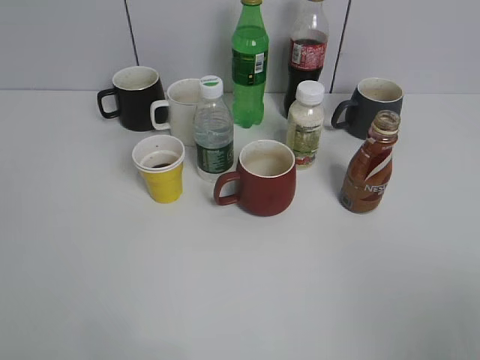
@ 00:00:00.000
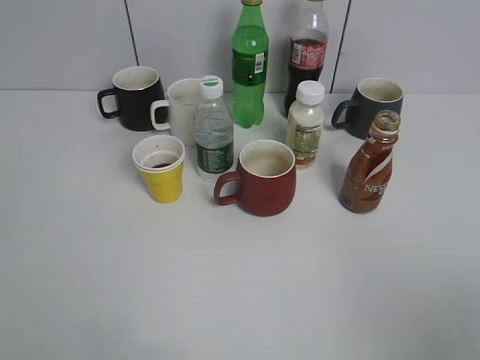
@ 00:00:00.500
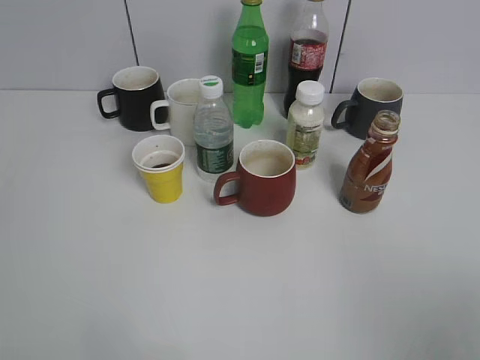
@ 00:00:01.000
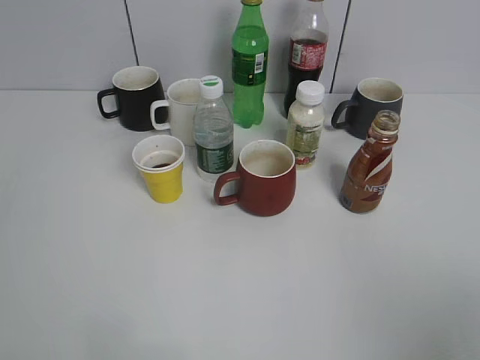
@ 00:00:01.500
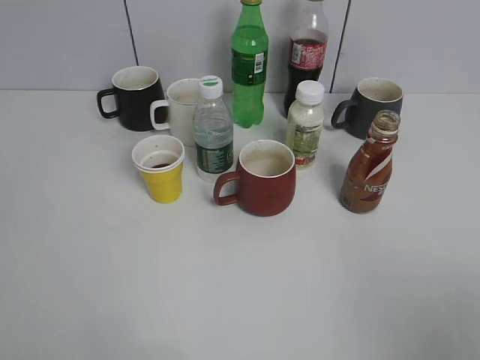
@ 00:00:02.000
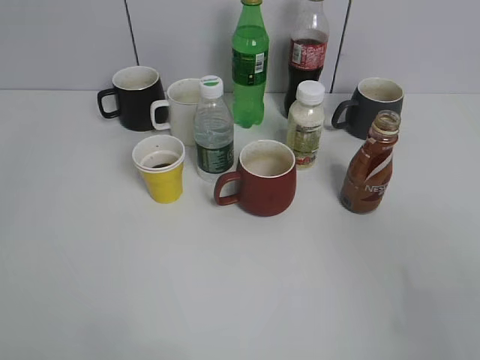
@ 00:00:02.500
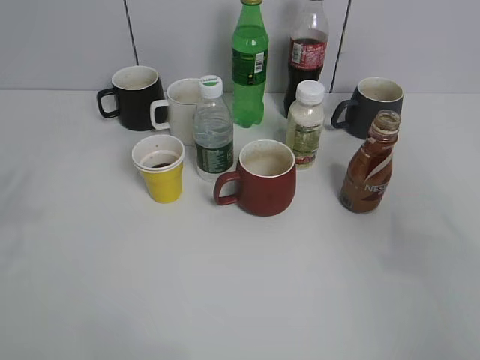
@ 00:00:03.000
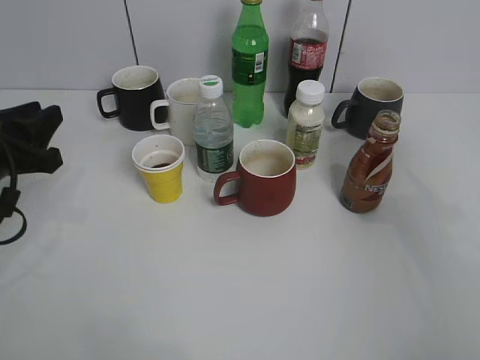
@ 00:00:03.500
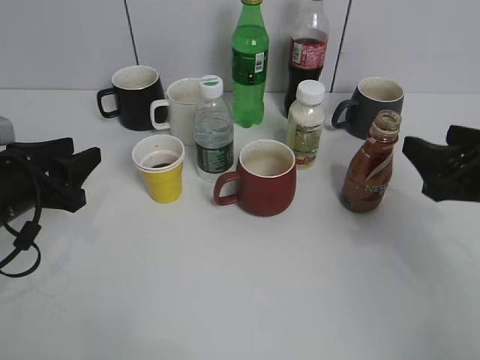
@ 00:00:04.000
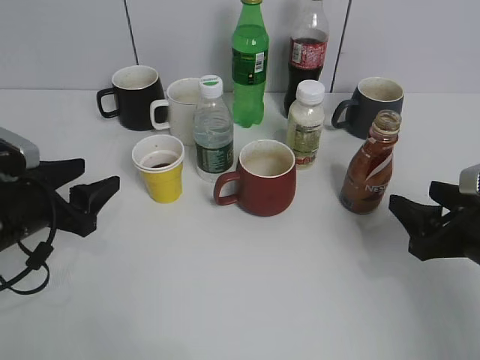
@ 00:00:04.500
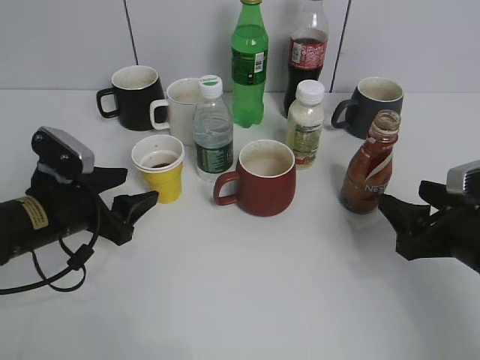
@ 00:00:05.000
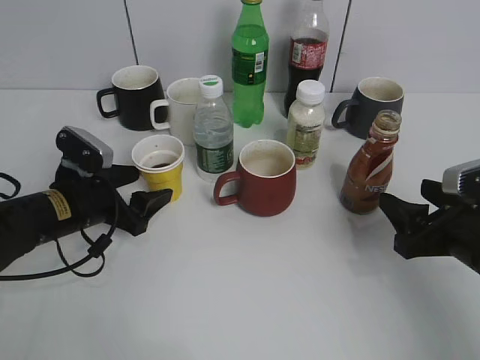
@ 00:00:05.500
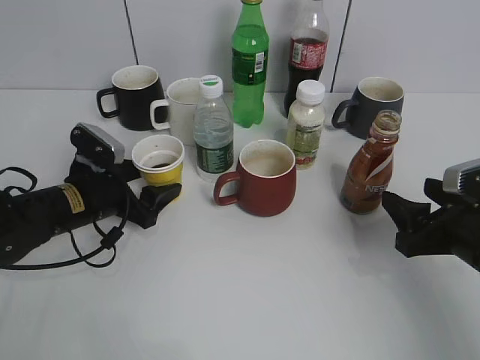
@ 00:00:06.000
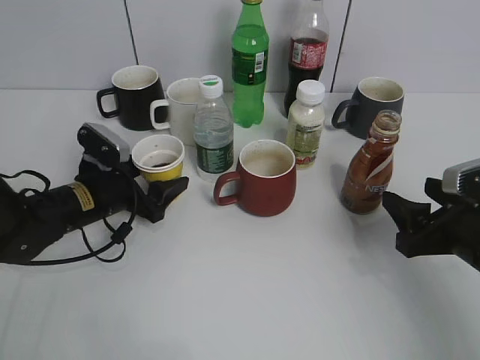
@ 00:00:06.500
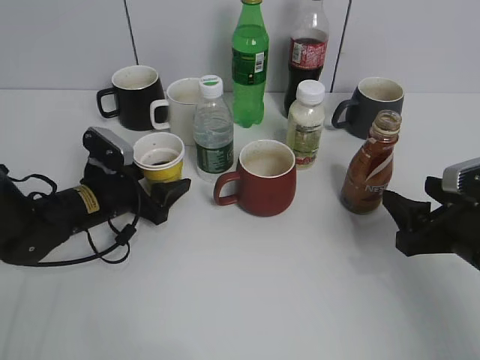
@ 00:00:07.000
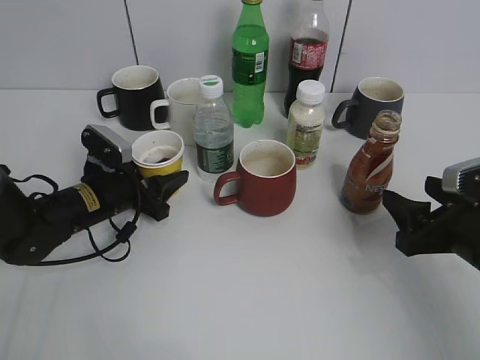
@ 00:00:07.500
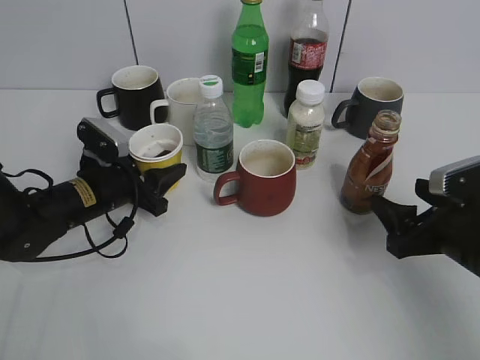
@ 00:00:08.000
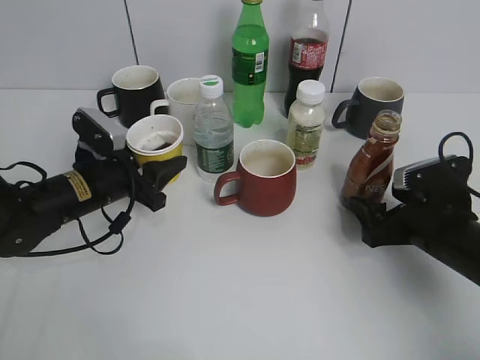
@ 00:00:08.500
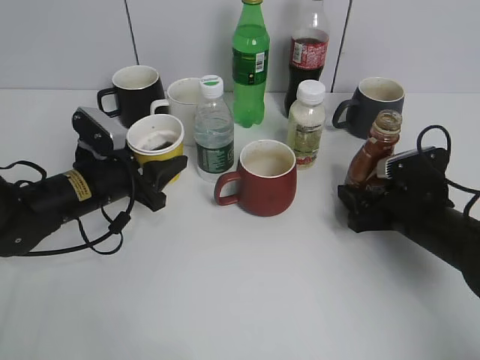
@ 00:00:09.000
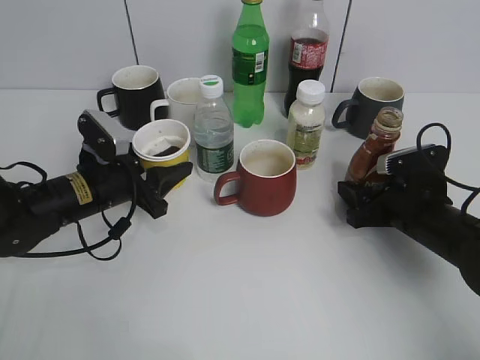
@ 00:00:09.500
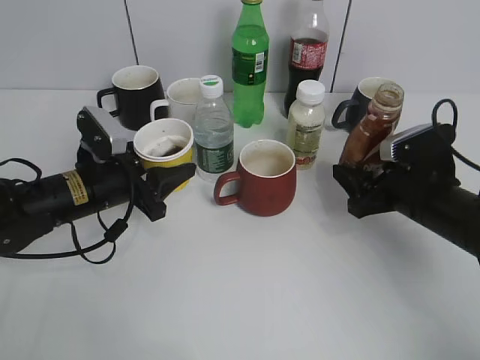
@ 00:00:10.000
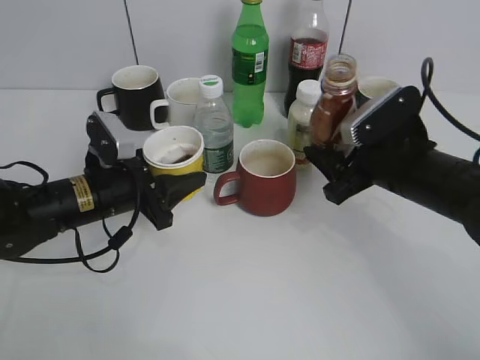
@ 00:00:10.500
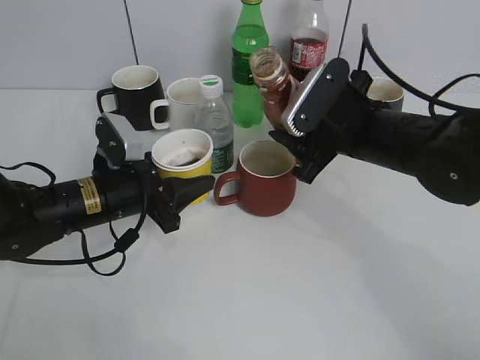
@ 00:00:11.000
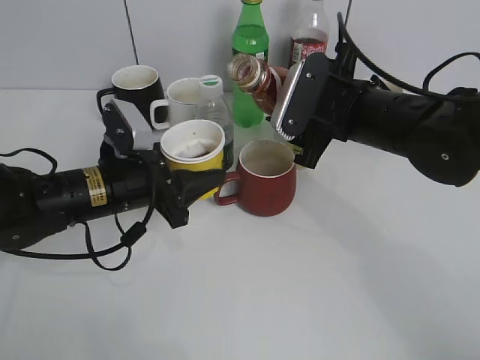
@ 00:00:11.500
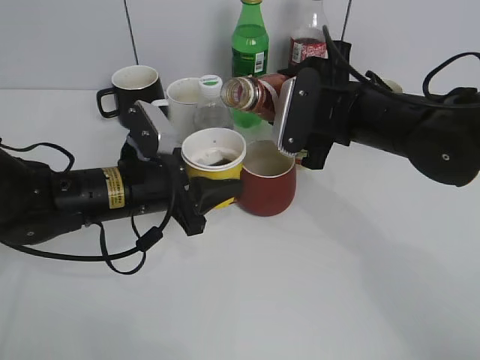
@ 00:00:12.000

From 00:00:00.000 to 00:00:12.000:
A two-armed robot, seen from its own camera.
Step, from 00:00:02.000 to 00:00:07.500: Grasp the yellow paper cup with left gripper.
Step, from 00:00:08.000 to 00:00:09.000: Lift the yellow paper cup with left gripper.
From 00:00:02.000 to 00:00:04.000: The two grippers go about 30 cm forward and downward. The right gripper closes its fingers.
From 00:00:04.000 to 00:00:06.000: The left gripper is displaced downward, forward and to the right by approximately 10 cm, and opens. The right gripper shifts about 5 cm downward.
From 00:00:06.000 to 00:00:08.000: The left gripper closes.
From 00:00:08.000 to 00:00:10.000: The right gripper moves forward, approximately 5 cm, and opens, then closes once more.
From 00:00:10.000 to 00:00:12.000: The right gripper travels to the left and upward by approximately 15 cm; the left gripper shifts some 5 cm to the right.

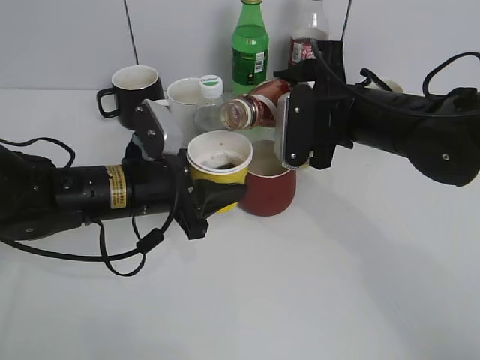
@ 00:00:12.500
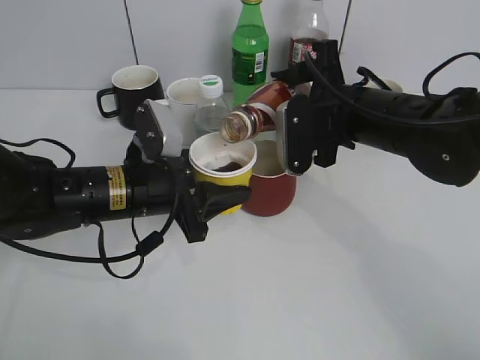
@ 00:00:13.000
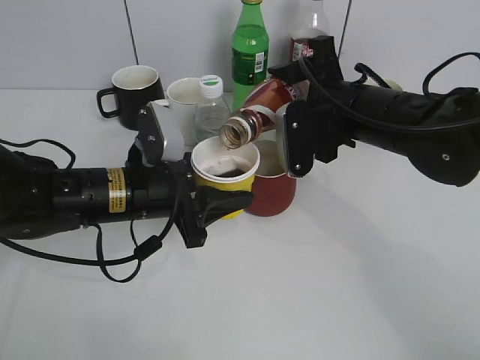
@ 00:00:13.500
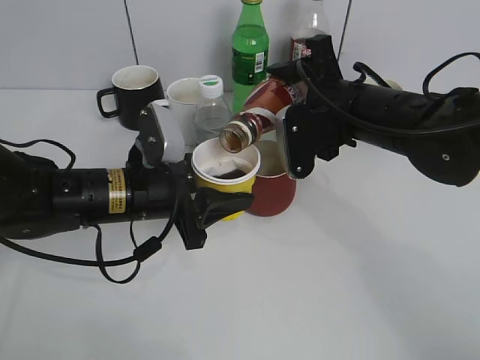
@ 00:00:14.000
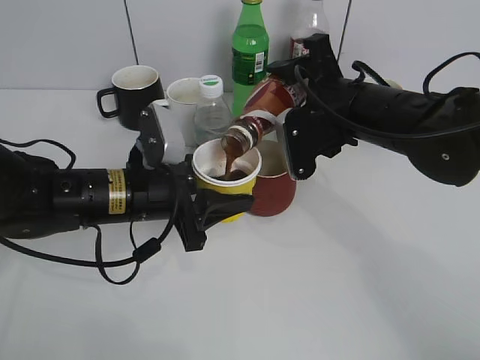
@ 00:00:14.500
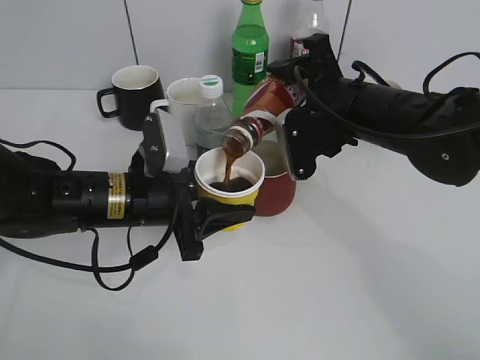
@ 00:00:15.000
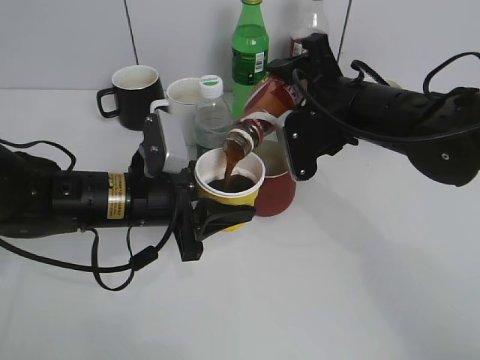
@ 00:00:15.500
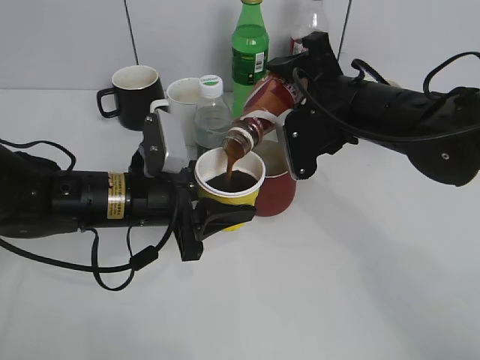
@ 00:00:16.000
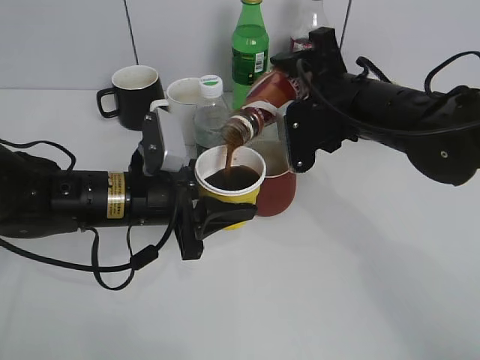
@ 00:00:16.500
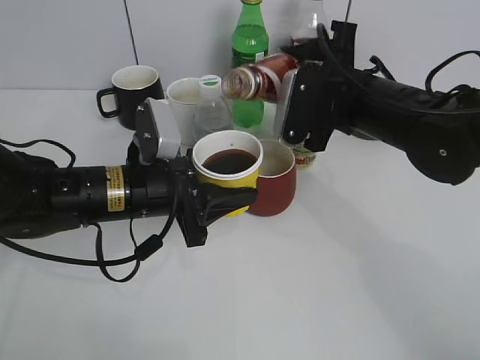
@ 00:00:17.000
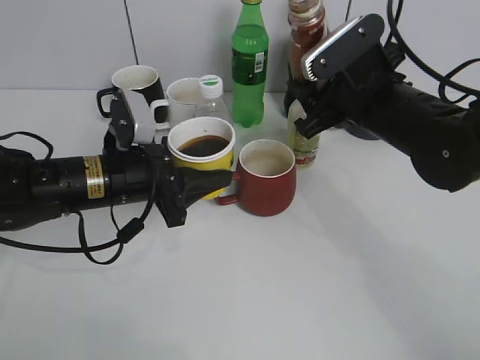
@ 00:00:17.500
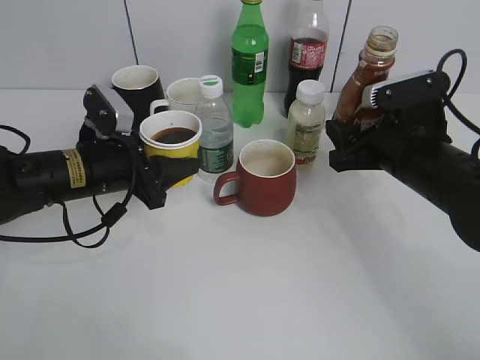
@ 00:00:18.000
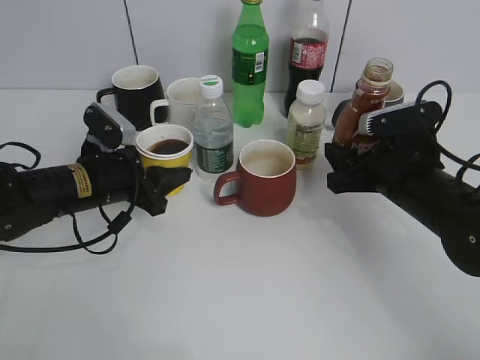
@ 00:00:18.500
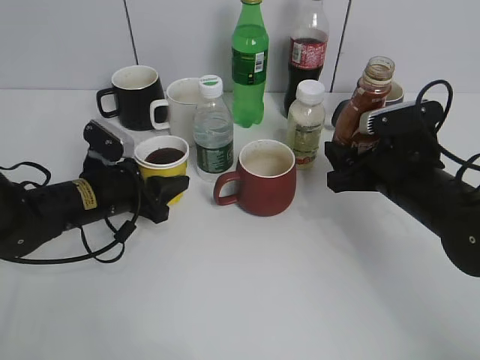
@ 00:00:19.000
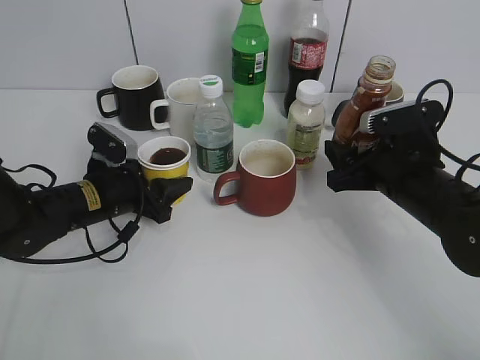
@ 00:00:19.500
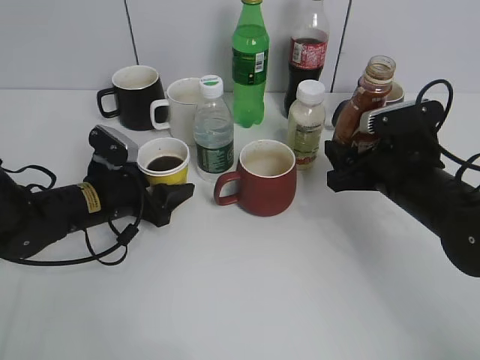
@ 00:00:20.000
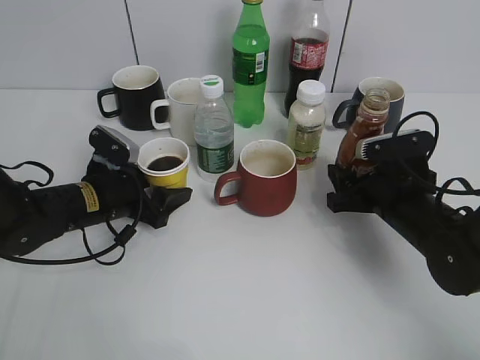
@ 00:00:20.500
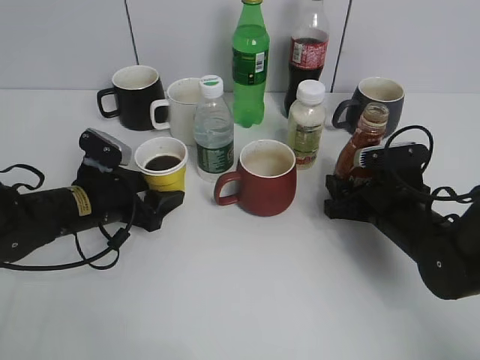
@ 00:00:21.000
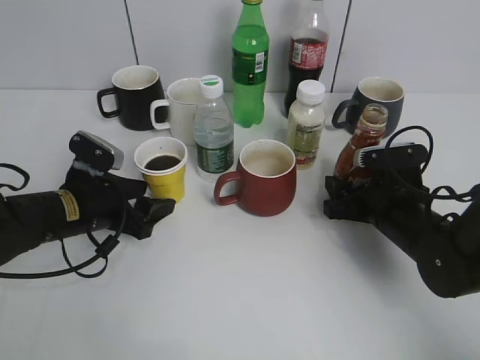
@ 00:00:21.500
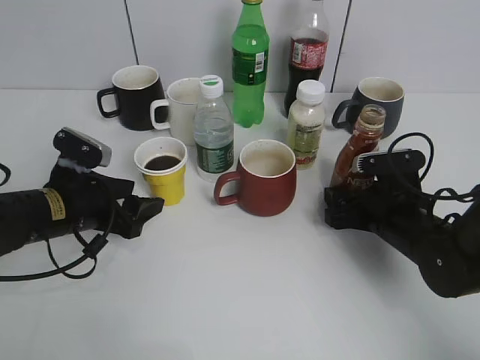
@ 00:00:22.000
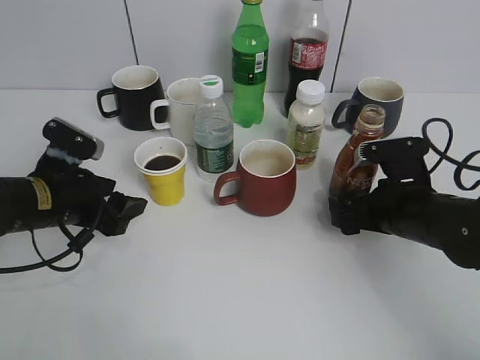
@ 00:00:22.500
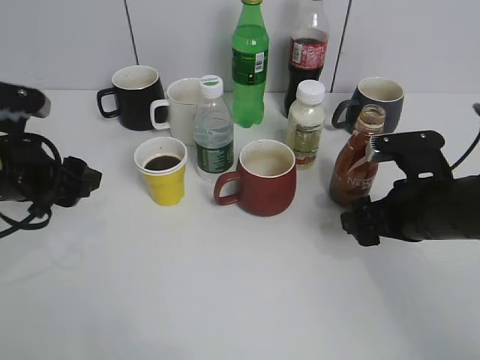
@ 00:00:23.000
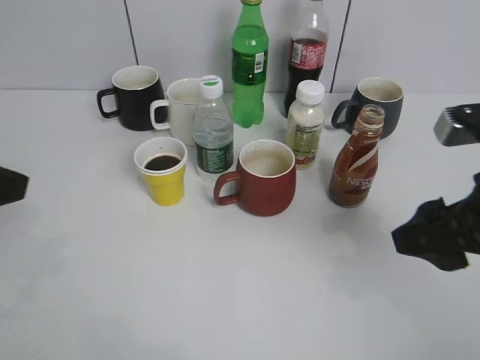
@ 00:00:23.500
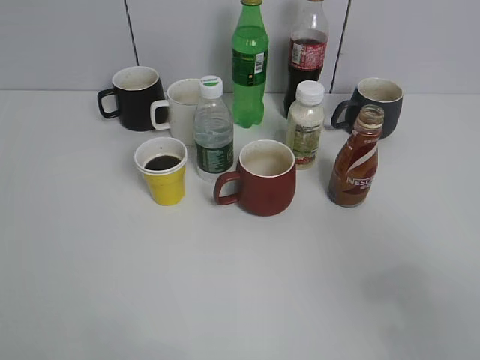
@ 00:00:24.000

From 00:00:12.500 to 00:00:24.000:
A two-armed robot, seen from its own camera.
Step, from 00:00:12.500 to 00:00:17.000: Pour the coffee from bottle to cup with right gripper.
Step, from 00:00:17.500 to 00:00:22.000: Place the coffee bottle on the table with right gripper.
From 00:00:14.500 to 00:00:16.500: Both grippers stay put.
From 00:00:16.500 to 00:00:18.500: The right gripper heads downward and to the right, covering approximately 10 cm. Meanwhile the left gripper goes approximately 10 cm to the left and forward.
From 00:00:18.500 to 00:00:20.000: The left gripper opens.
From 00:00:20.000 to 00:00:22.000: The right gripper moves downward, about 5 cm, and opens; the left gripper shifts by some 5 cm.
From 00:00:22.000 to 00:00:24.000: The right gripper heads upward and backward, covering approximately 30 cm, while the left gripper travels backward, upward and to the left by approximately 35 cm.

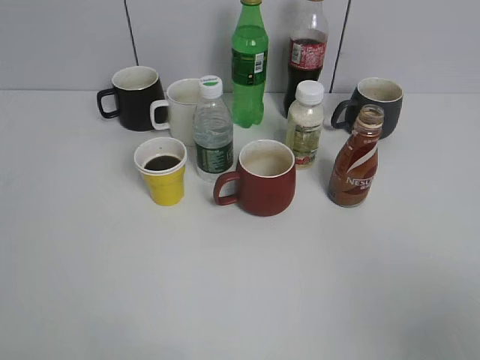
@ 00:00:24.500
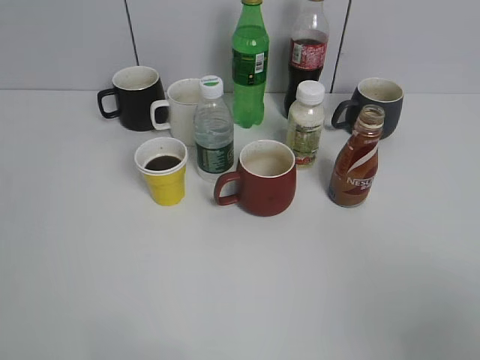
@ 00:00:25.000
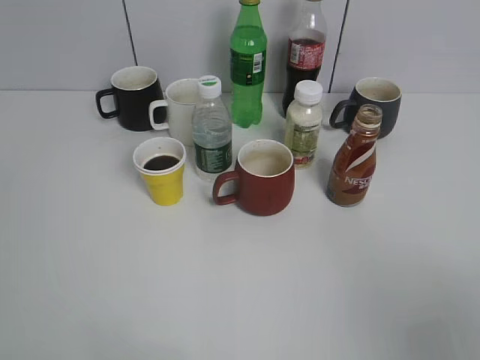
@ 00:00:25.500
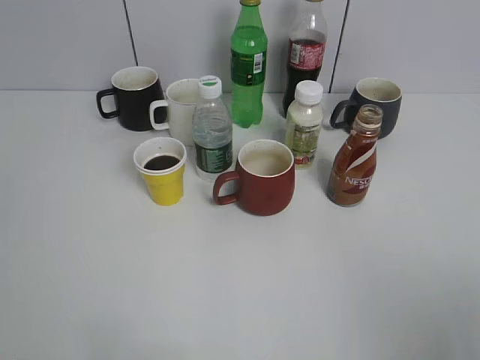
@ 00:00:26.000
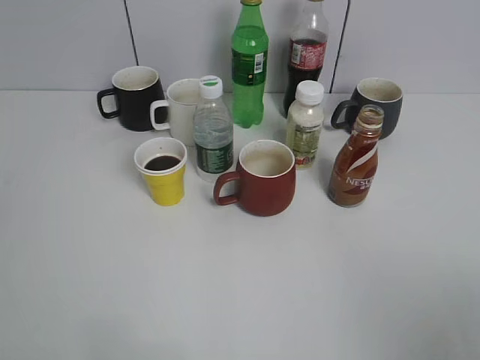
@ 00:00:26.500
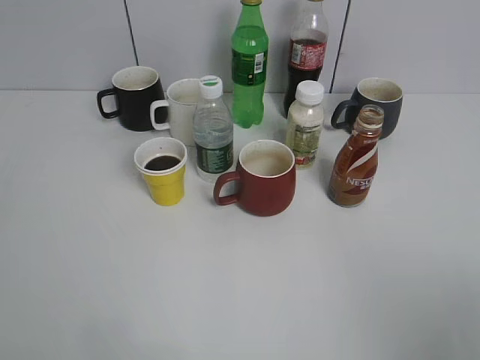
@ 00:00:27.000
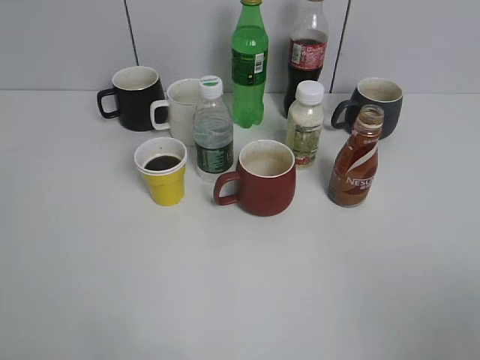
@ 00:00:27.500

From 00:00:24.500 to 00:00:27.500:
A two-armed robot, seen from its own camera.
From 00:00:26.000 to 00:00:27.500: Both grippers stay put.
